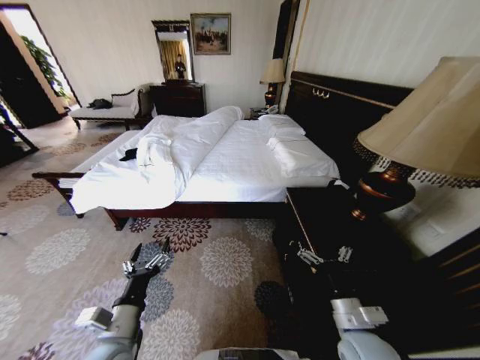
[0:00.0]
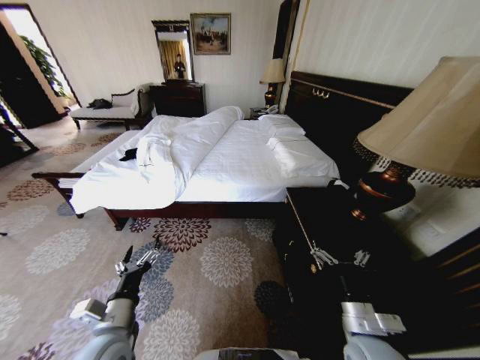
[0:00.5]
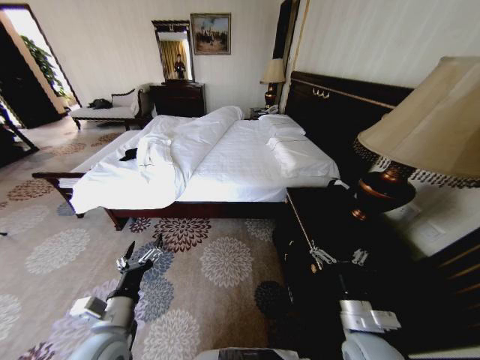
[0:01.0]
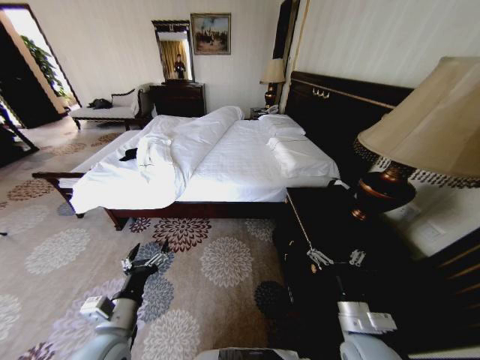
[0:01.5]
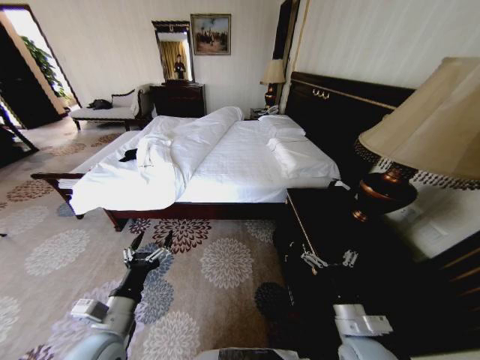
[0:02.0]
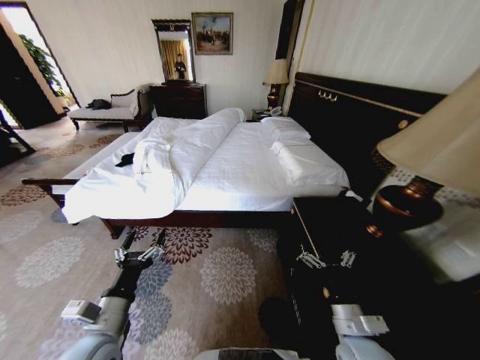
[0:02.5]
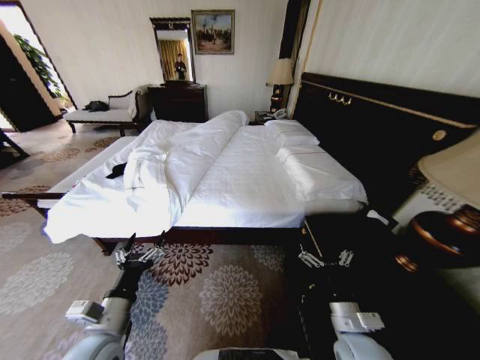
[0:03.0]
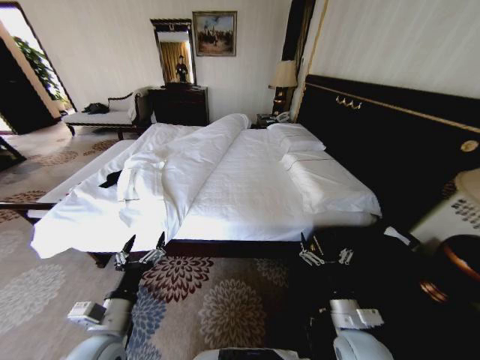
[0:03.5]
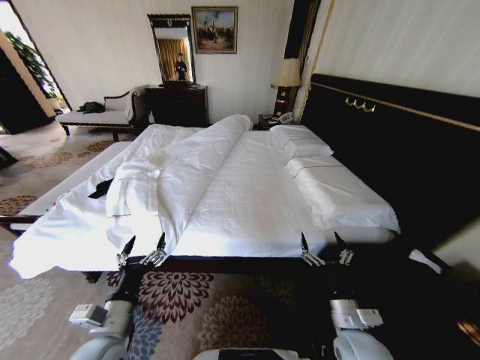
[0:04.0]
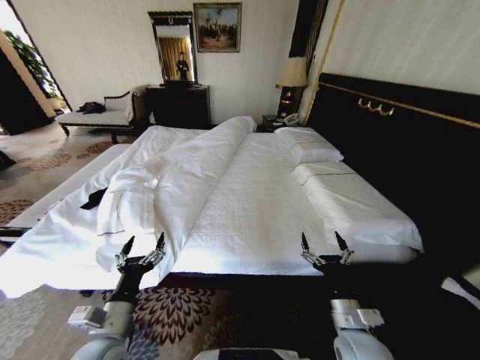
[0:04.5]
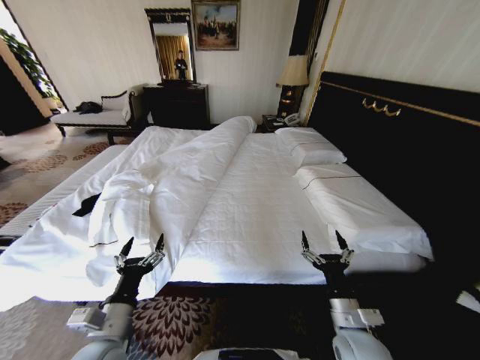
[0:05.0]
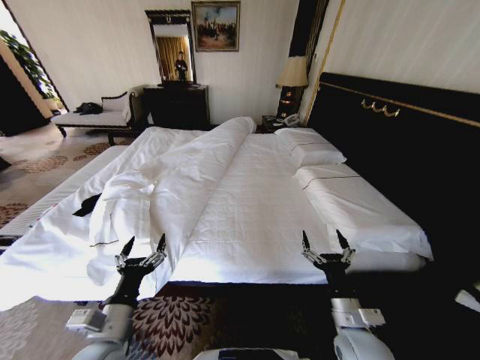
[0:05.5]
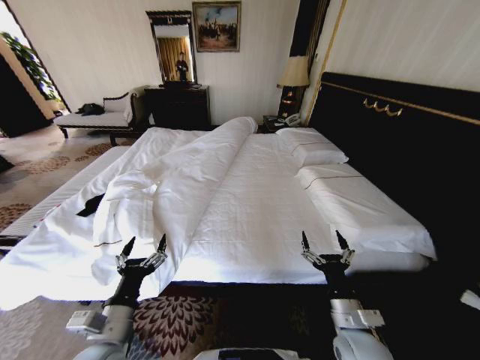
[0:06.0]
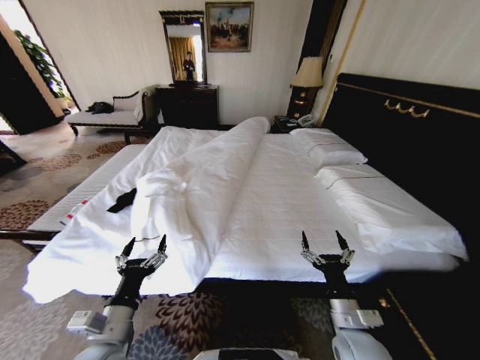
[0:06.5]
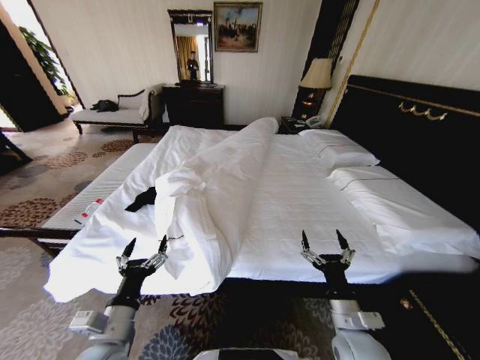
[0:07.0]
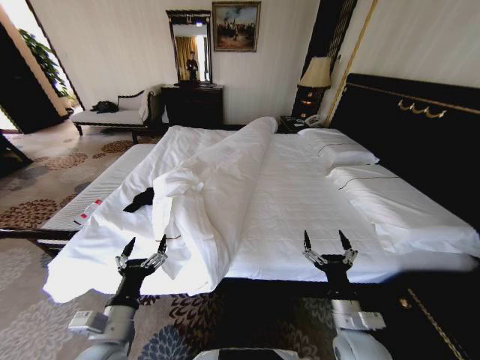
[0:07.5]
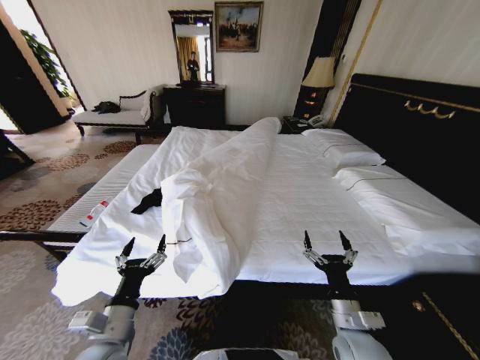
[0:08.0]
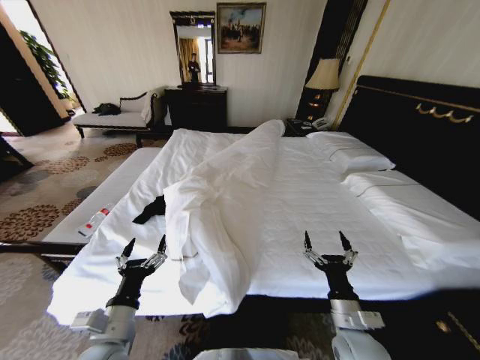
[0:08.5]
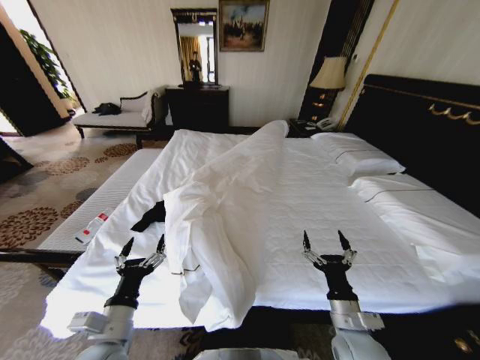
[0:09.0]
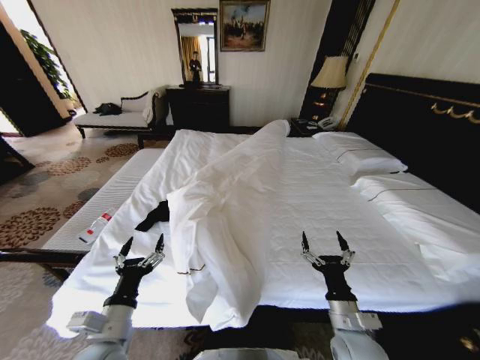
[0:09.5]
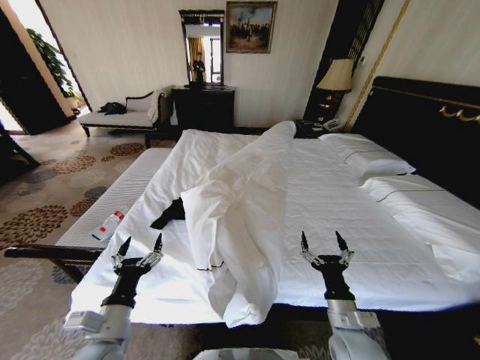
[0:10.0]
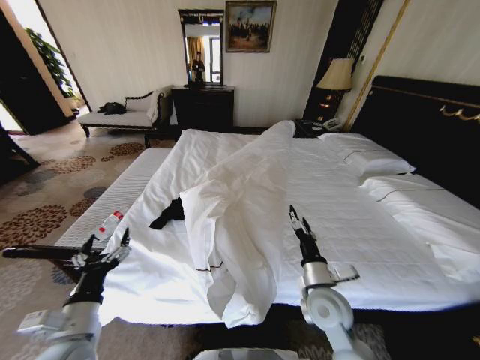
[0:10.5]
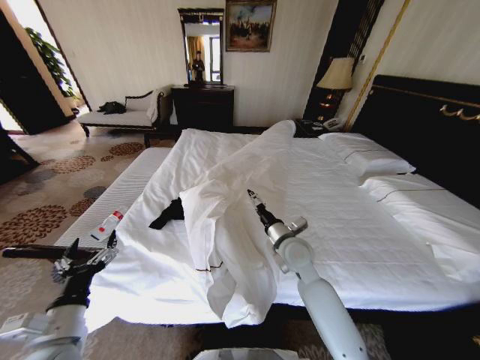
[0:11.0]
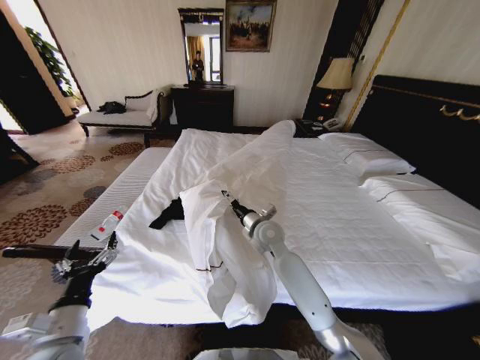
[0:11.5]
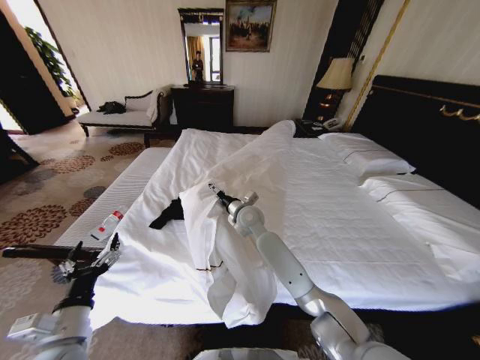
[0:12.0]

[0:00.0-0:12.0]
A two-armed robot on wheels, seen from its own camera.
Task of the whole recording: Fold the clothes on the bed.
0:10.0 to 0:12.0: The left gripper goes roughly 5 cm to the left. Meanwhile the right gripper moves forward and to the left, some 40 cm.

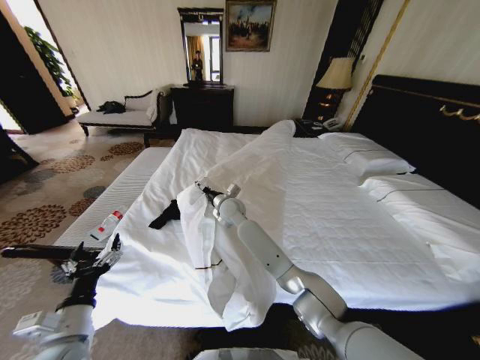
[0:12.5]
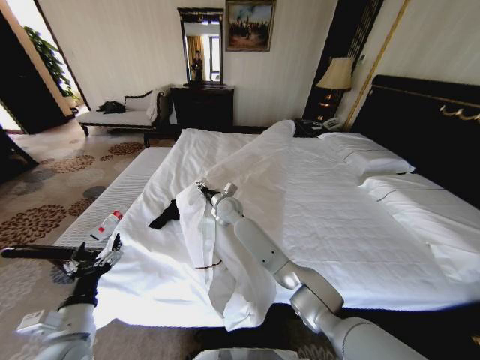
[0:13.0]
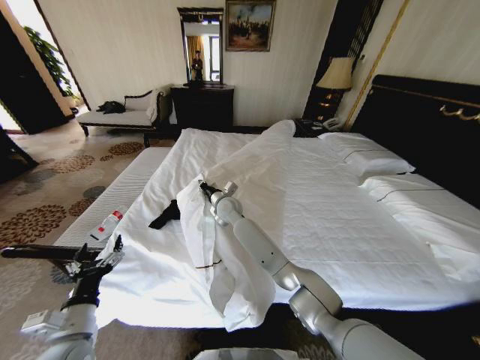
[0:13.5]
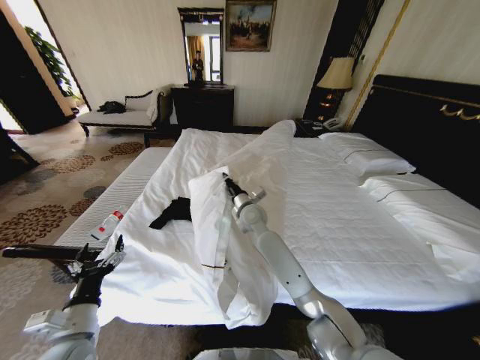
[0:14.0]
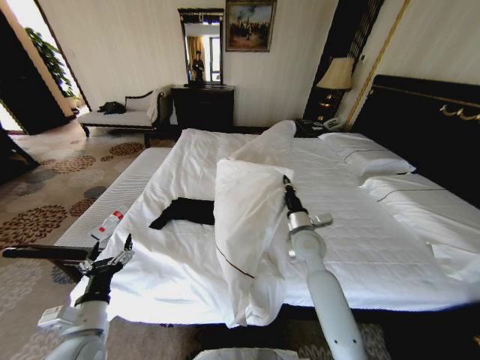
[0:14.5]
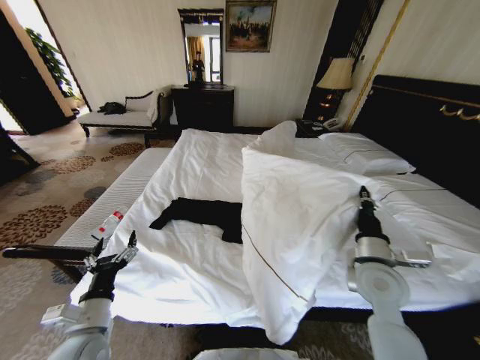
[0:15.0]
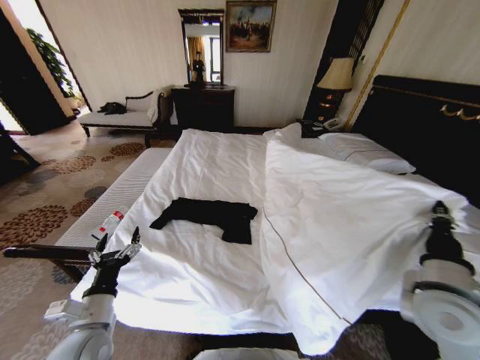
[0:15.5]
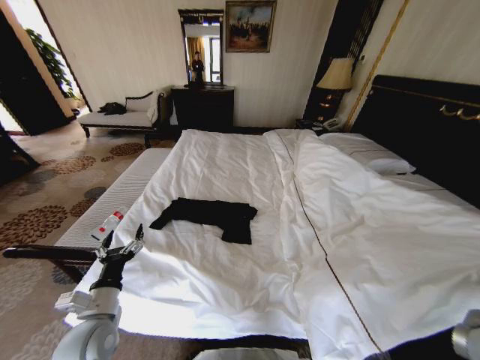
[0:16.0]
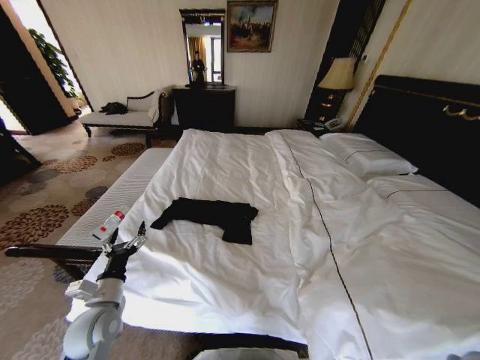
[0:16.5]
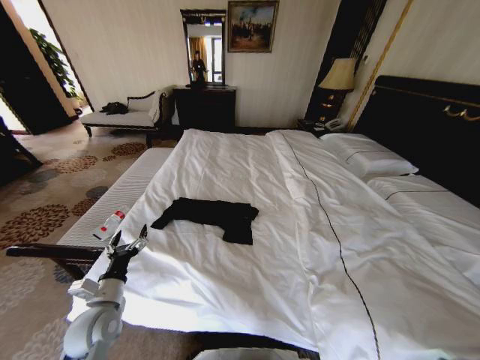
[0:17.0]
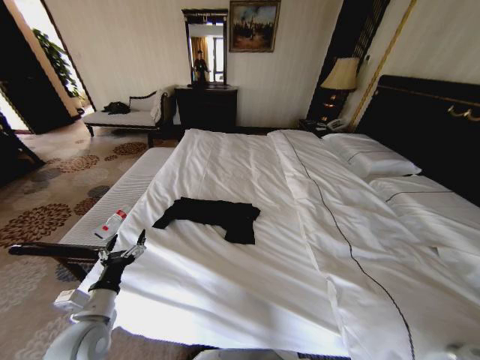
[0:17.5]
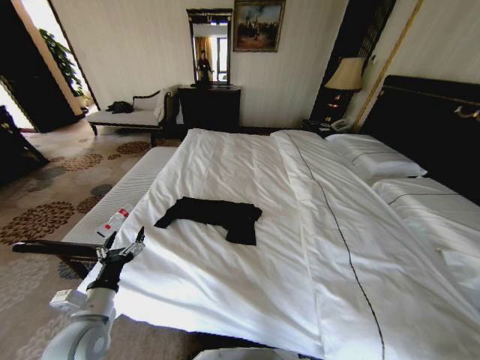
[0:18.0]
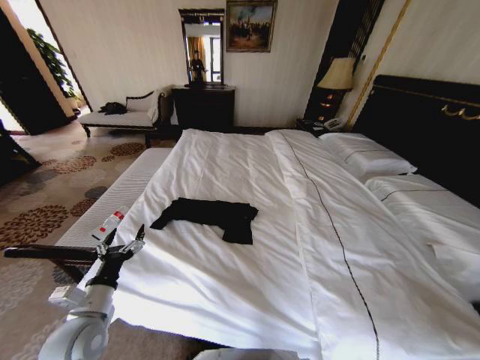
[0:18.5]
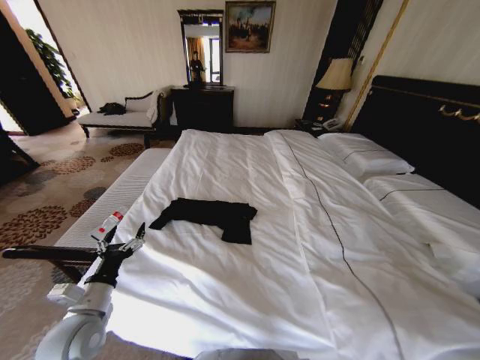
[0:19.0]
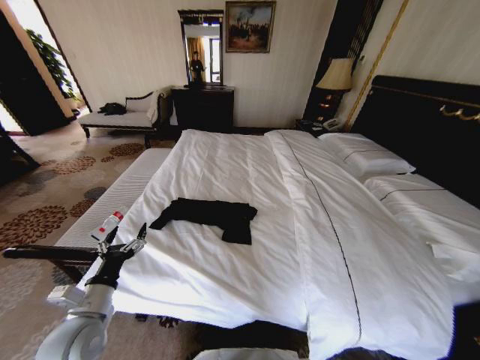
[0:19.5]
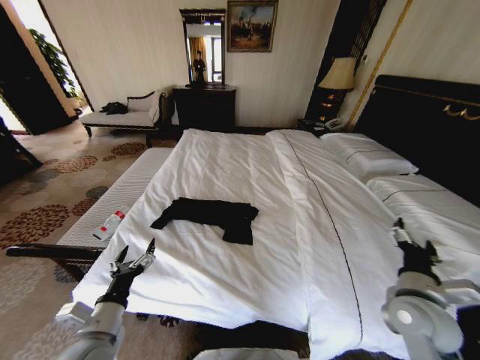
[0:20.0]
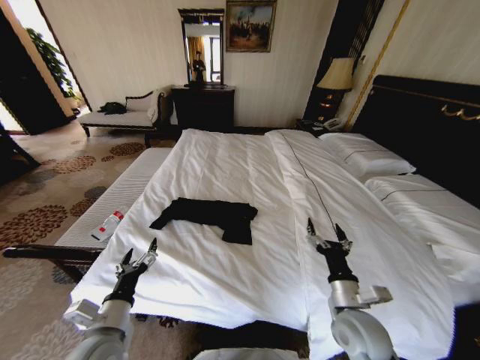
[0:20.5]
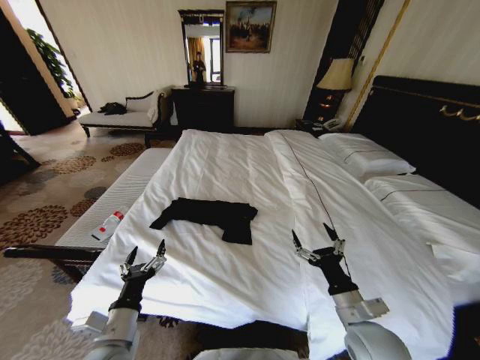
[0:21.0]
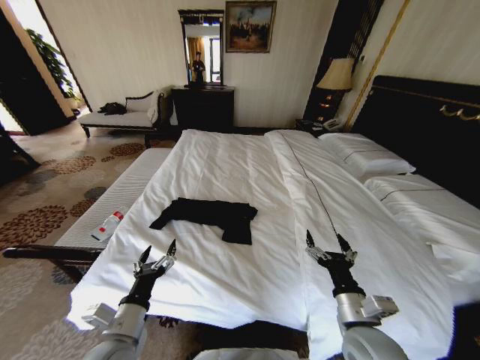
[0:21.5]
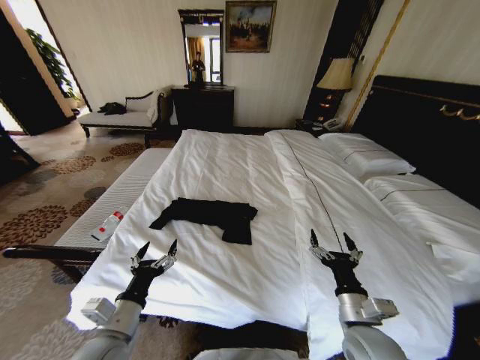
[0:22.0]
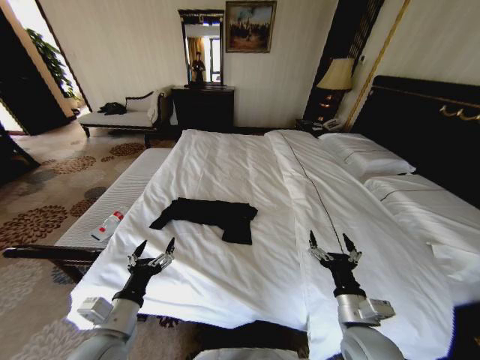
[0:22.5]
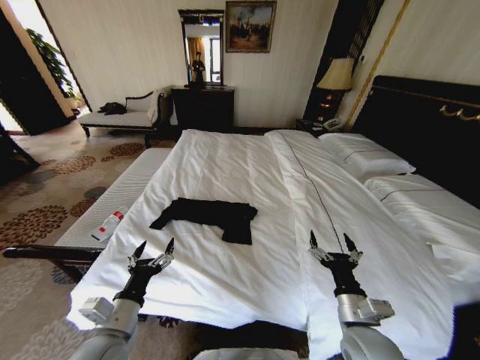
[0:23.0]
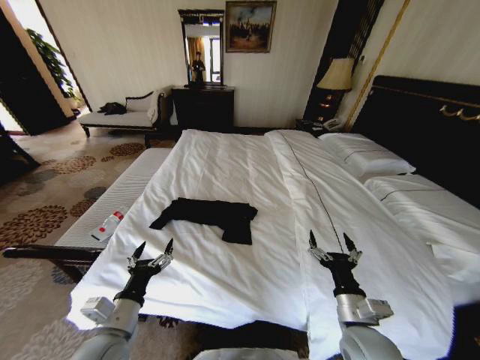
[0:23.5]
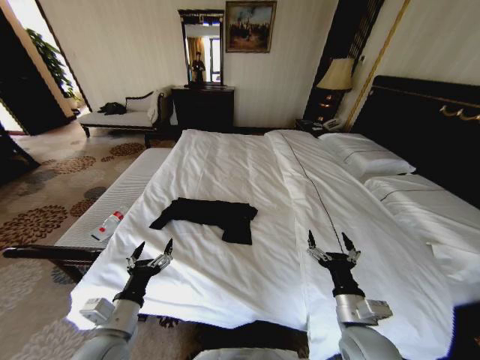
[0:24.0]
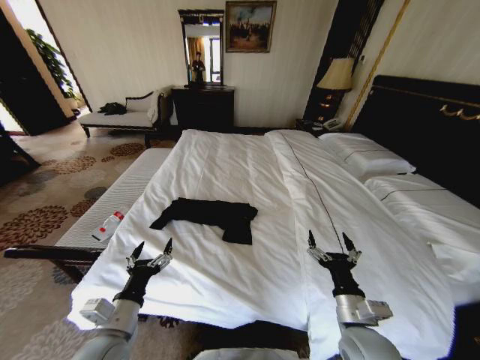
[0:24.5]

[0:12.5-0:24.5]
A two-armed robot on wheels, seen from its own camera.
Task of the whole recording: Fold the clothes on the bed.
0:12.5 to 0:14.5: The right gripper goes about 25 cm to the right and backward, and closes.
0:14.5 to 0:16.5: The right gripper heads backward and to the right, covering some 40 cm, while the left gripper is displaced forward by some 5 cm.
0:16.5 to 0:18.5: The right gripper moves downward and to the right, roughly 20 cm, and opens its fingers.
0:18.5 to 0:20.5: The right gripper goes some 30 cm to the left, and opens up. The left gripper travels to the right by some 5 cm.
0:22.5 to 0:24.5: The two grippers keep their place.

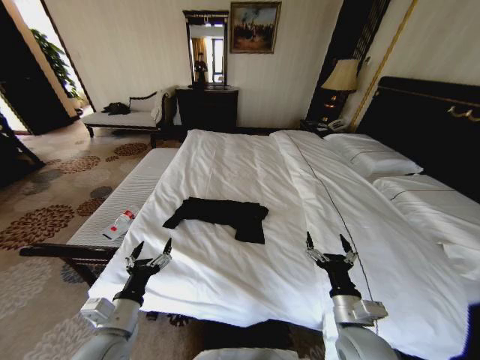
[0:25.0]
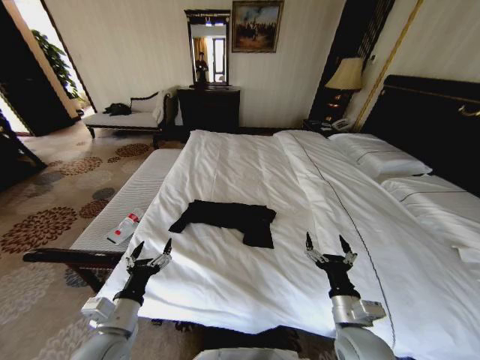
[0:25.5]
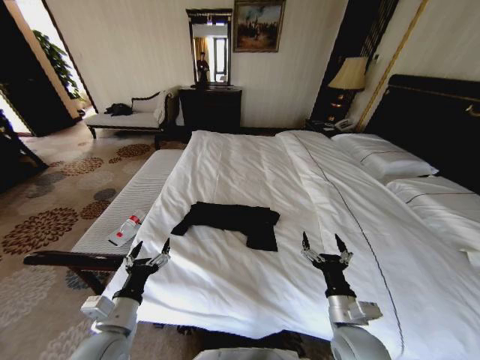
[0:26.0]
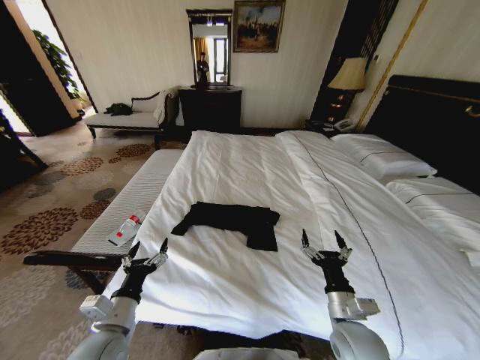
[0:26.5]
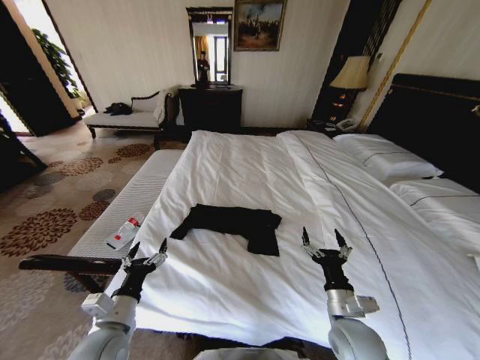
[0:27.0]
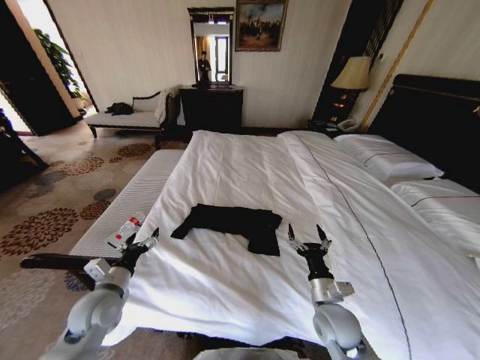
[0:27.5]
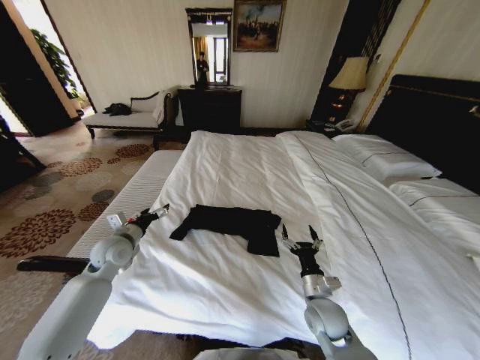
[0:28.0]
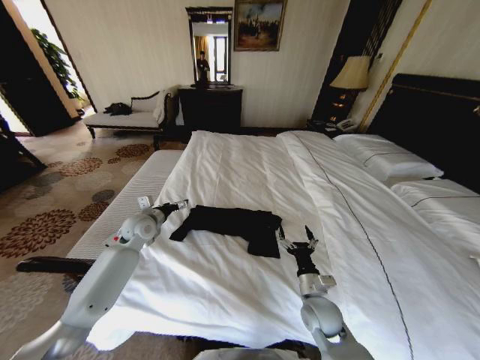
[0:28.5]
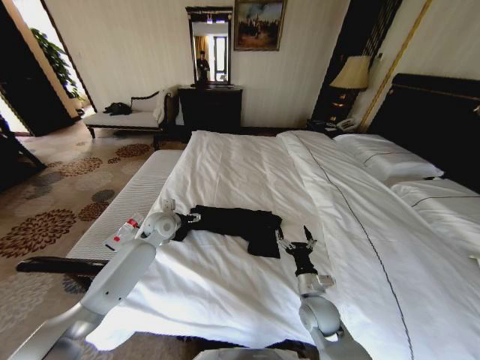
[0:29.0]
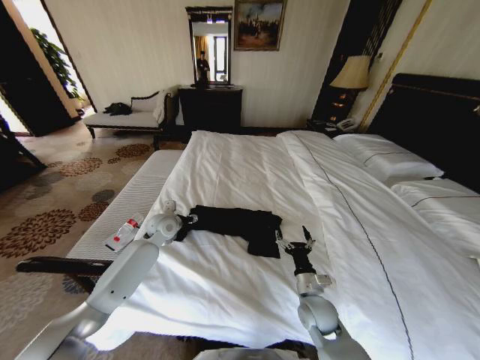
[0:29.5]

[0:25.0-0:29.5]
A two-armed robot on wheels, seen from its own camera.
Task of the whole recording: Fold the clothes on the bed.
0:27.0 to 0:29.5: The right gripper heads forward and downward, covering roughly 10 cm. The left gripper heads forward, covering approximately 30 cm.
